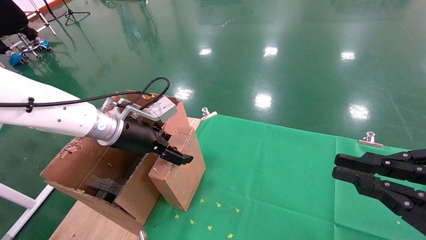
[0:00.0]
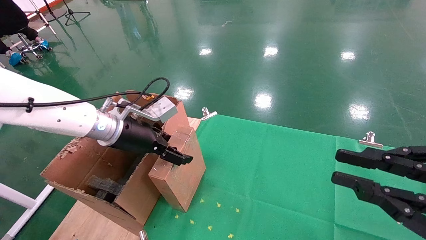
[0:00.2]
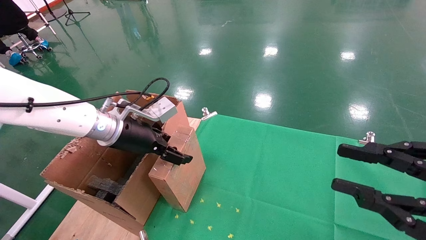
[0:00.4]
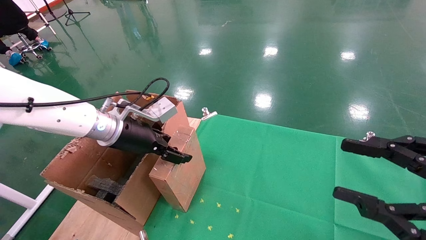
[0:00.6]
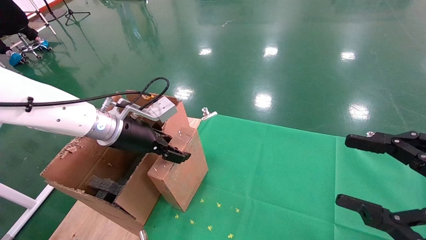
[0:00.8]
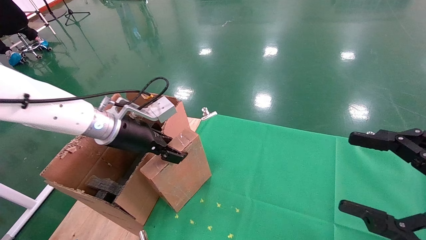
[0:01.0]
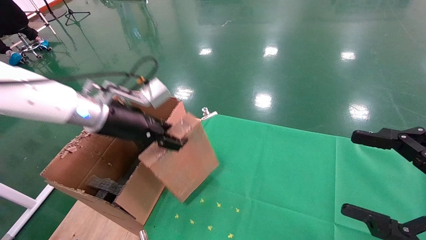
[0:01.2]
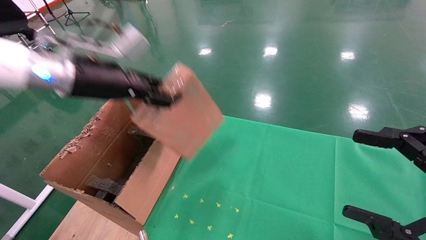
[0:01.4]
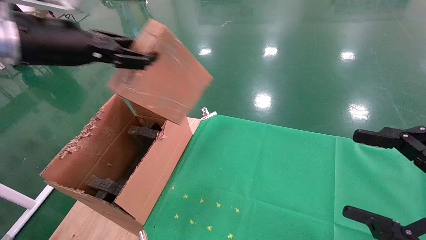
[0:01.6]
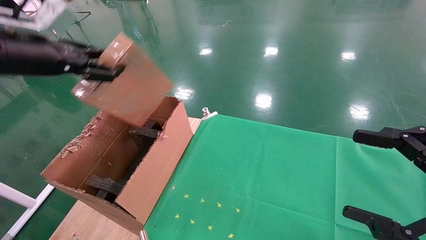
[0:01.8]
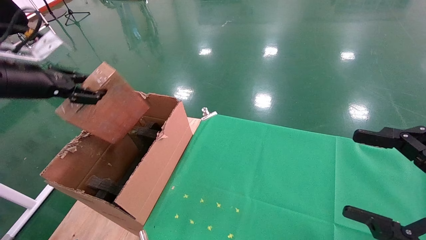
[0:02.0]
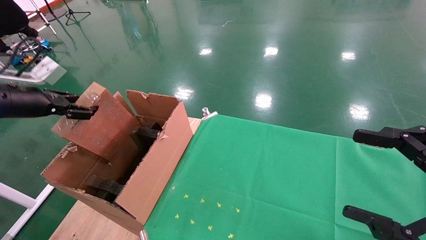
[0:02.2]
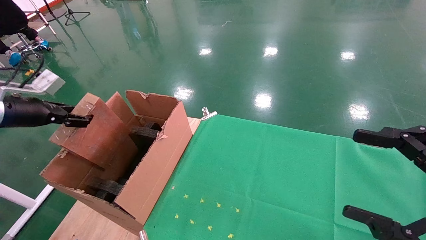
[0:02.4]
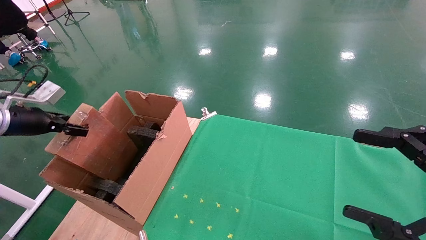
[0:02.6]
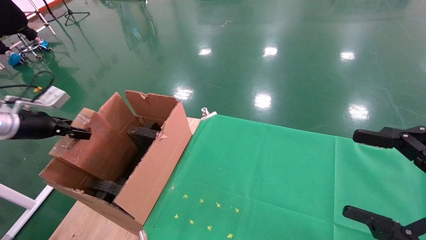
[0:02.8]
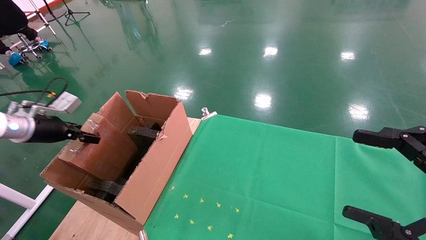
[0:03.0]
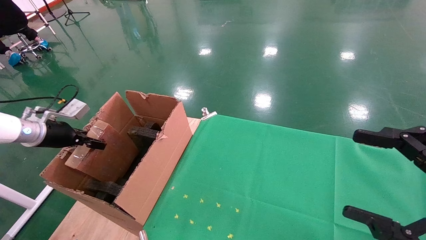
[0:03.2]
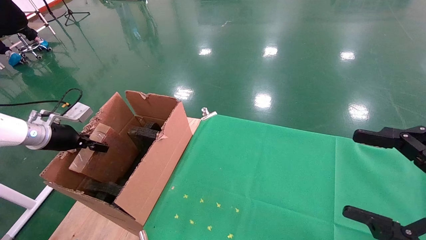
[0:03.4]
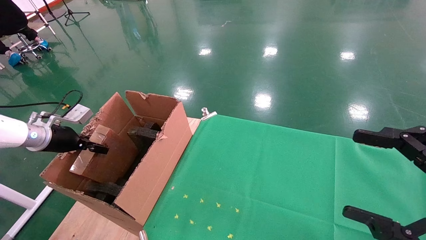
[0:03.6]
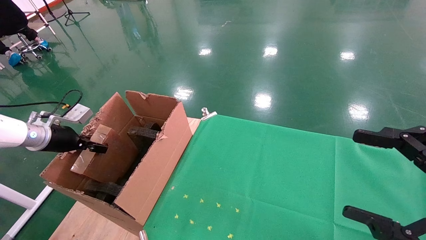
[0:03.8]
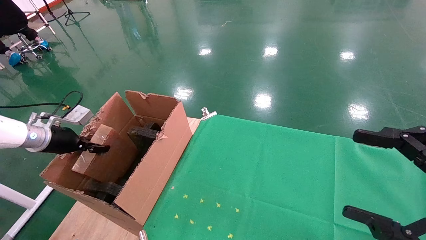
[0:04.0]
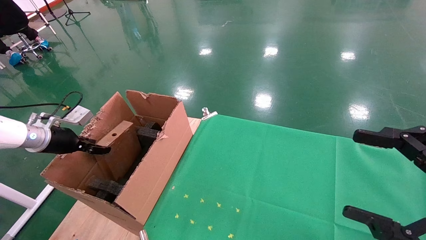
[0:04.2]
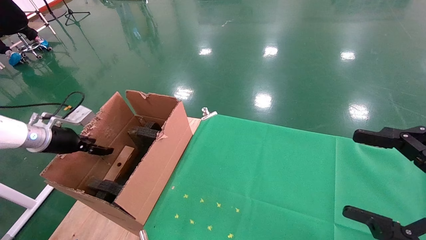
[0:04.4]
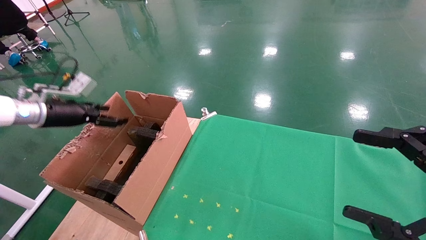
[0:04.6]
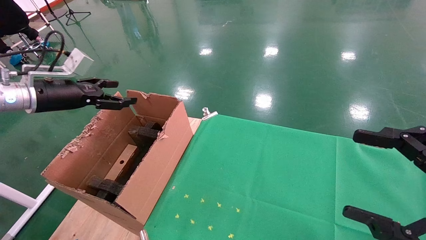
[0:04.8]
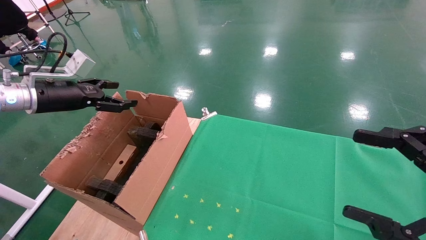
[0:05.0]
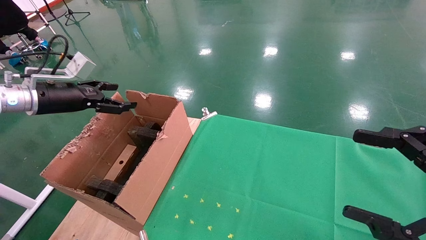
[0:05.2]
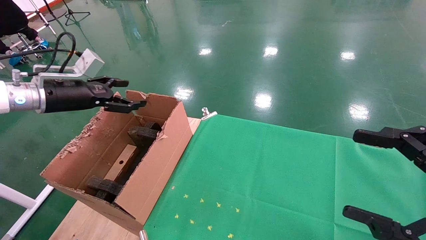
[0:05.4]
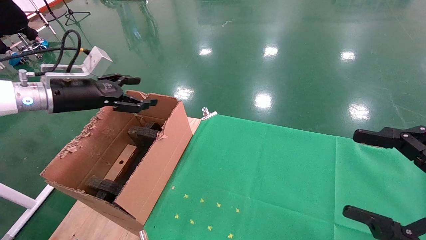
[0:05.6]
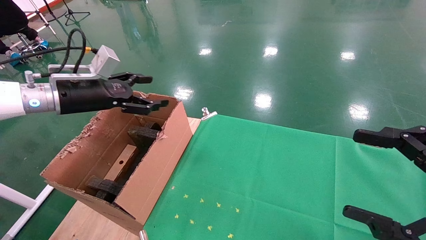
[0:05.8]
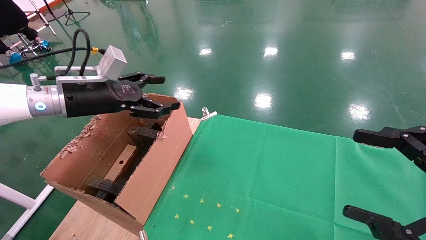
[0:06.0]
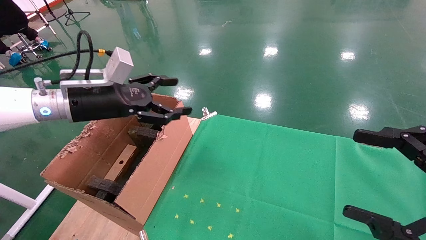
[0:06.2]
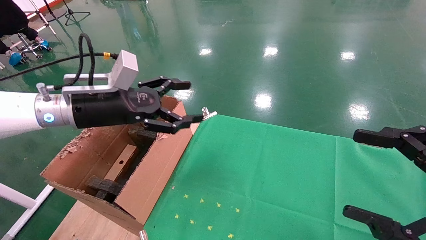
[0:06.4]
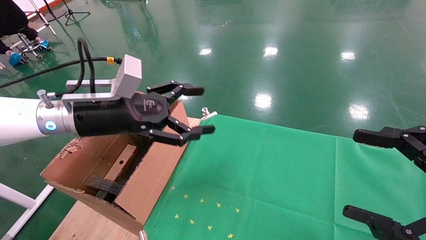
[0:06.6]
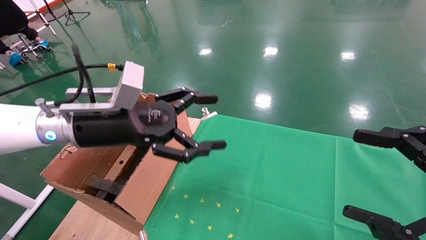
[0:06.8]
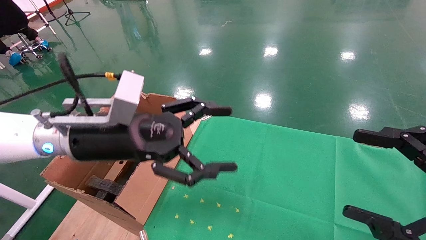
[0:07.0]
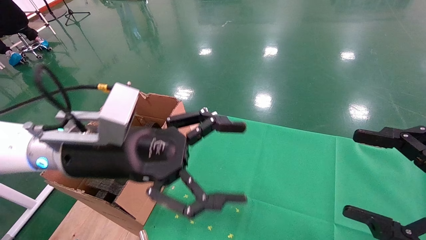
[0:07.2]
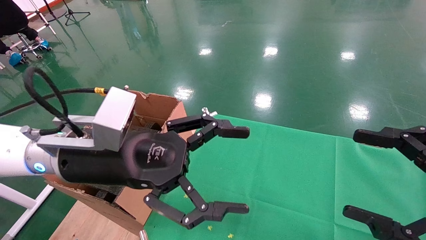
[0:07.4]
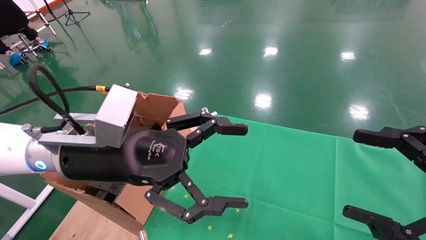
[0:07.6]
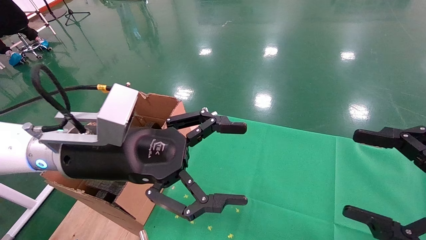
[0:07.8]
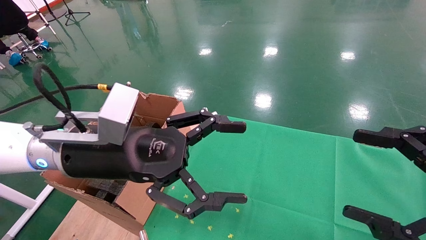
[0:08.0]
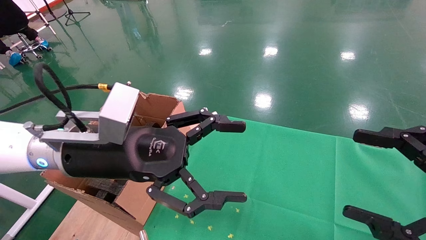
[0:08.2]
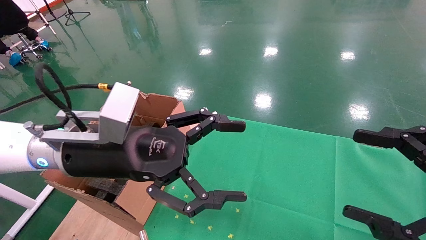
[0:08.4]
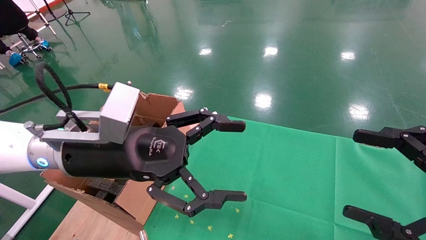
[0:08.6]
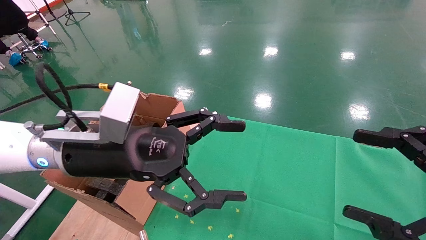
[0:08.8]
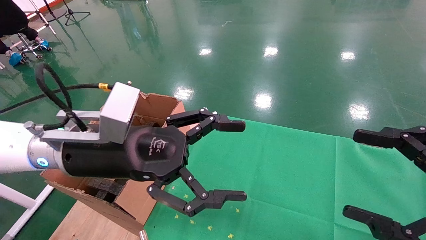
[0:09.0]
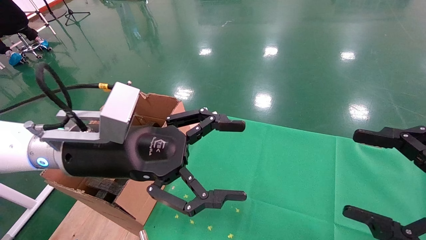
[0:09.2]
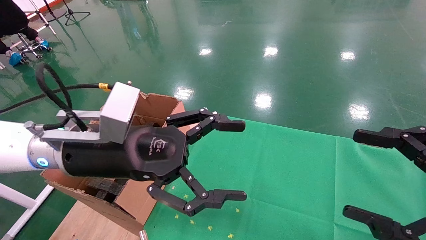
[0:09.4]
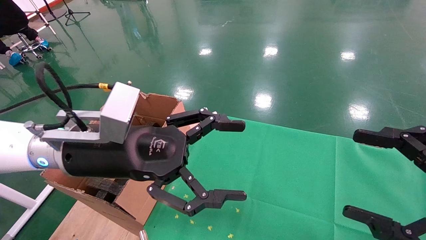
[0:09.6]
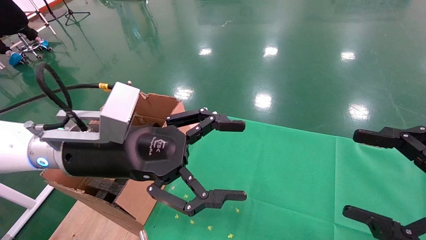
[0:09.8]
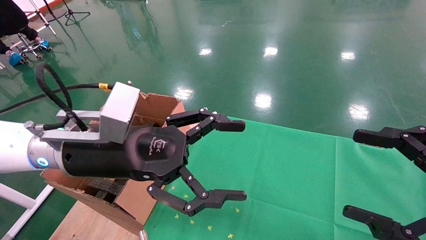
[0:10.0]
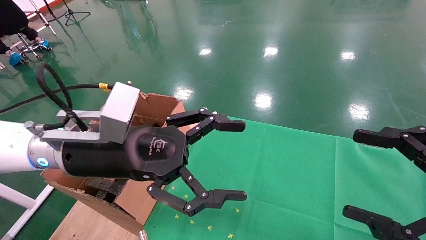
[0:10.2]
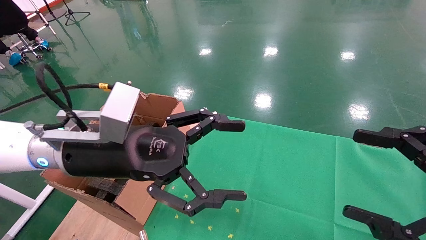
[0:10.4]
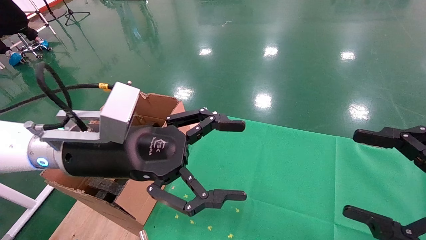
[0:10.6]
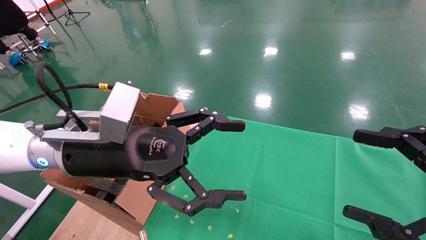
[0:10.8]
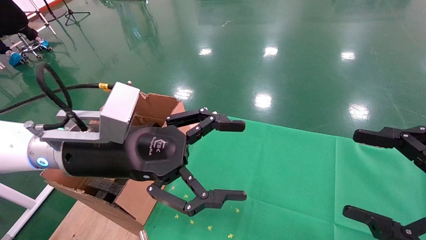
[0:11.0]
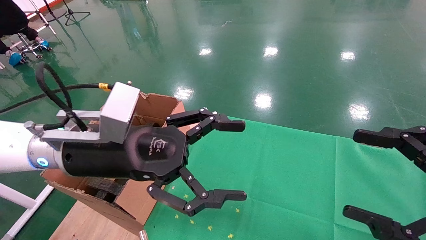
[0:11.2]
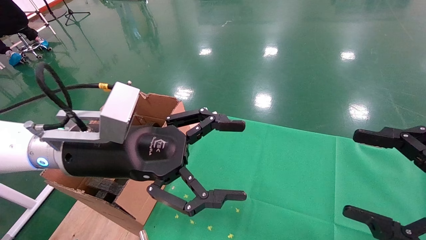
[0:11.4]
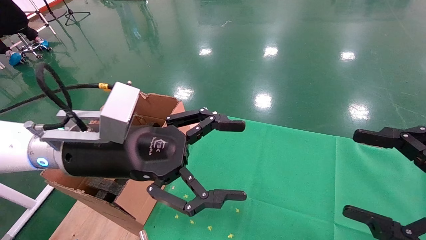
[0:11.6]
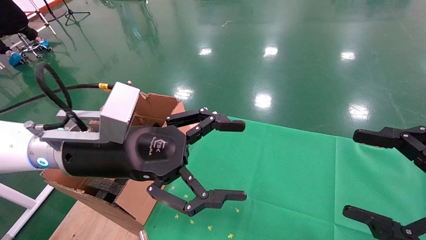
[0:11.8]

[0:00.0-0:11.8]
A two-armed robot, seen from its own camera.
Task of the whole recording: using a robotic arm to pick up a cardboard box and palace it the carton.
Step, 0:01.2 to 0:04.2: Place the mouse and the power cord paper box into the container.
0:00.0 to 0:01.4: The right gripper opens up, while the left gripper travels upward and backward by approximately 15 cm, and closes up.
0:01.4 to 0:03.0: The left gripper moves to the left and downward, about 25 cm.
0:03.0 to 0:04.4: The left gripper opens its fingers.
0:04.4 to 0:06.0: The left gripper moves to the right, approximately 15 cm, and opens.
0:06.0 to 0:07.4: The left gripper travels to the right and backward by roughly 15 cm.
0:07.4 to 0:11.8: Both grippers stay about where they are.
